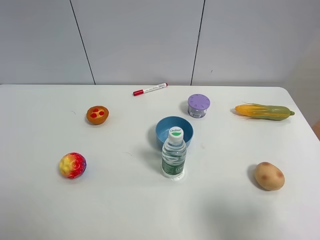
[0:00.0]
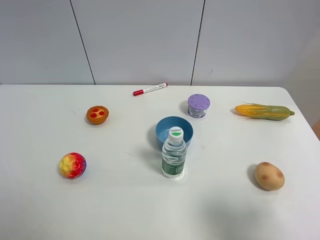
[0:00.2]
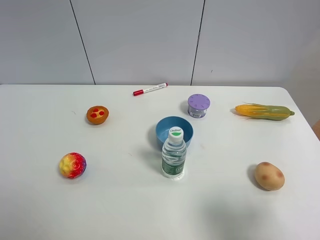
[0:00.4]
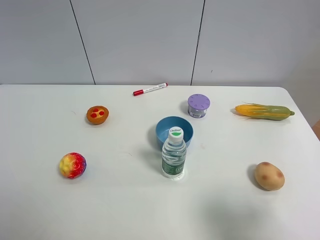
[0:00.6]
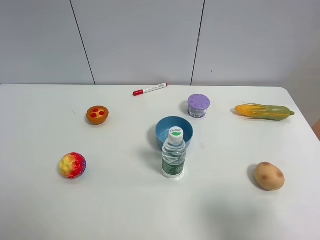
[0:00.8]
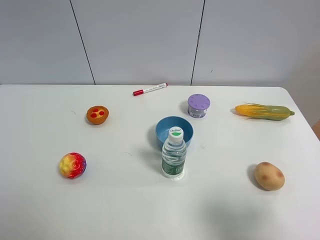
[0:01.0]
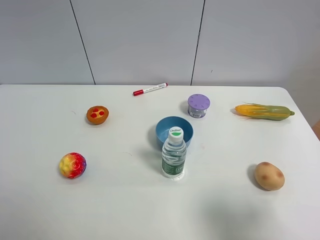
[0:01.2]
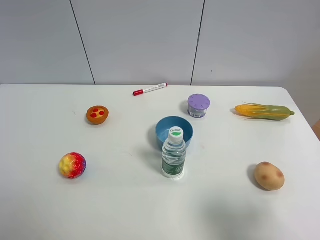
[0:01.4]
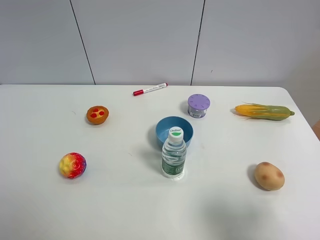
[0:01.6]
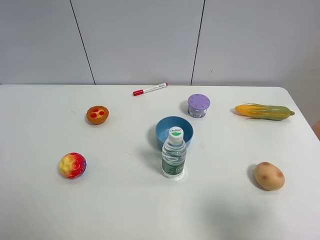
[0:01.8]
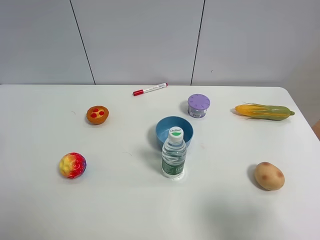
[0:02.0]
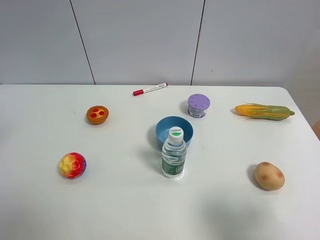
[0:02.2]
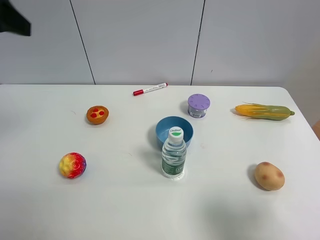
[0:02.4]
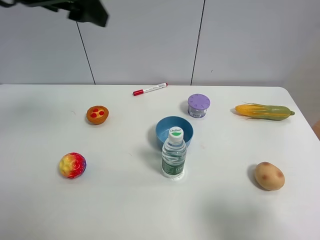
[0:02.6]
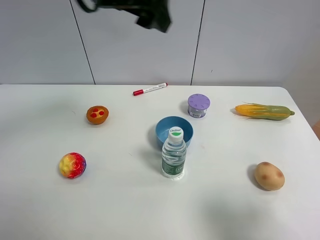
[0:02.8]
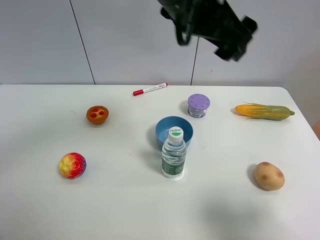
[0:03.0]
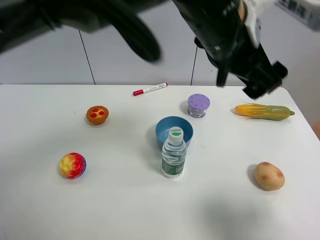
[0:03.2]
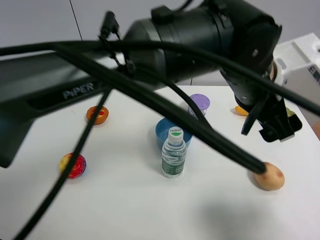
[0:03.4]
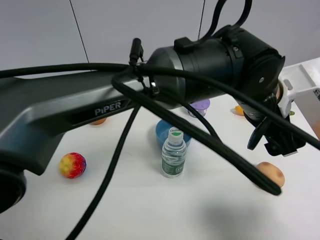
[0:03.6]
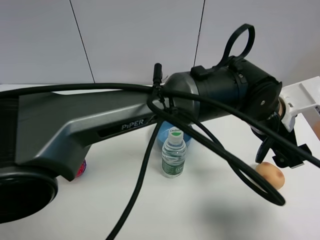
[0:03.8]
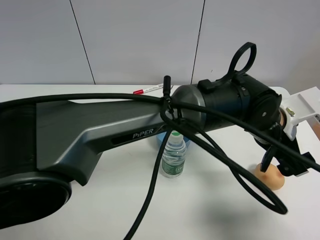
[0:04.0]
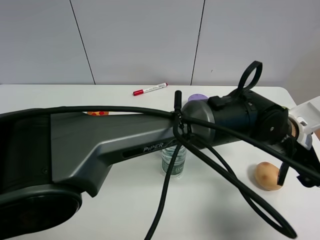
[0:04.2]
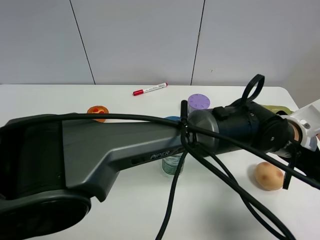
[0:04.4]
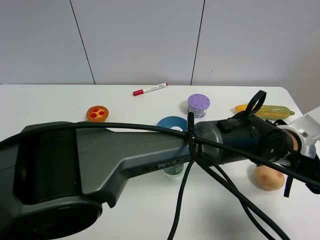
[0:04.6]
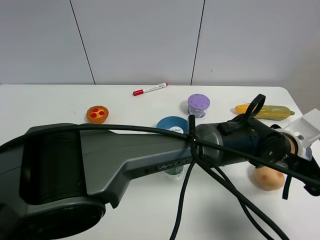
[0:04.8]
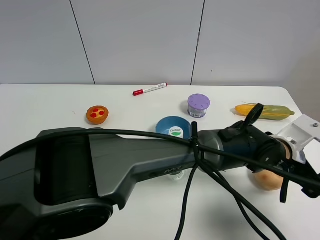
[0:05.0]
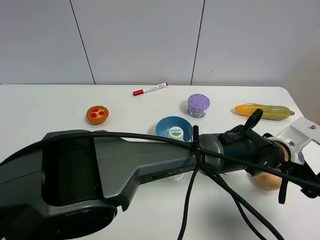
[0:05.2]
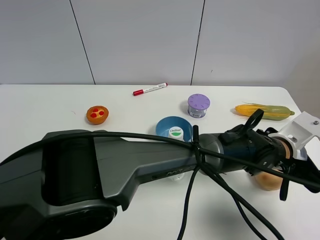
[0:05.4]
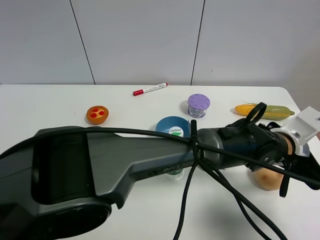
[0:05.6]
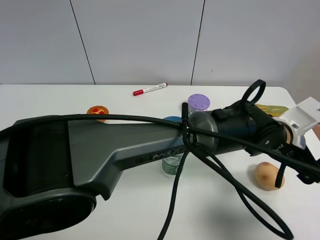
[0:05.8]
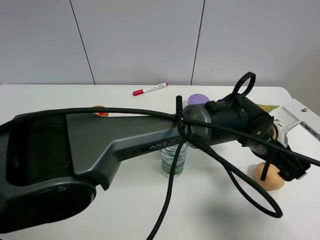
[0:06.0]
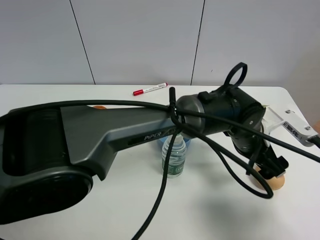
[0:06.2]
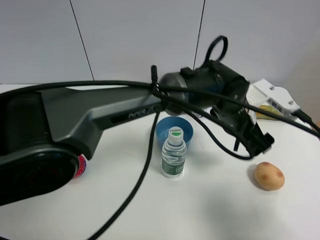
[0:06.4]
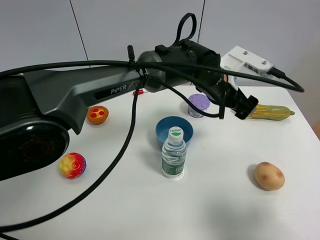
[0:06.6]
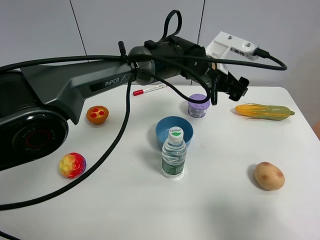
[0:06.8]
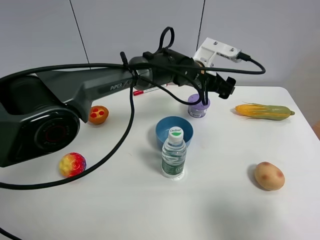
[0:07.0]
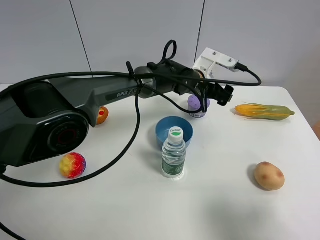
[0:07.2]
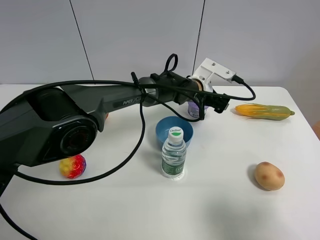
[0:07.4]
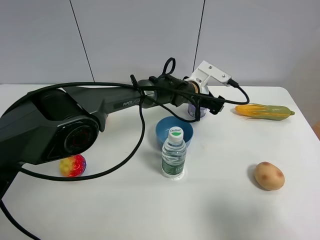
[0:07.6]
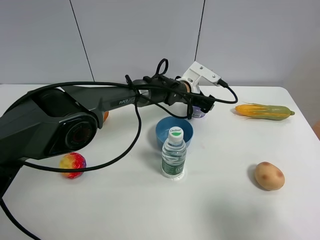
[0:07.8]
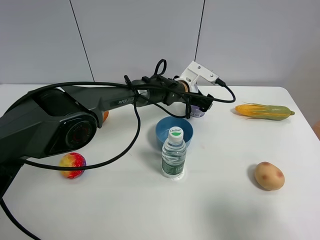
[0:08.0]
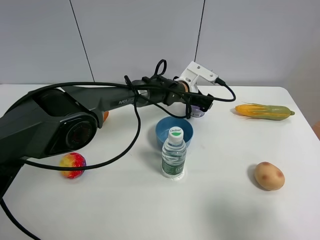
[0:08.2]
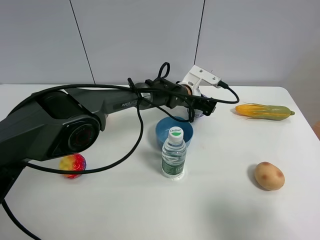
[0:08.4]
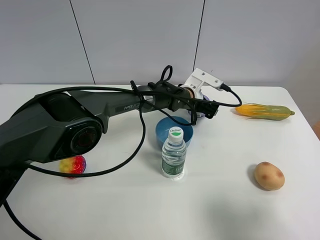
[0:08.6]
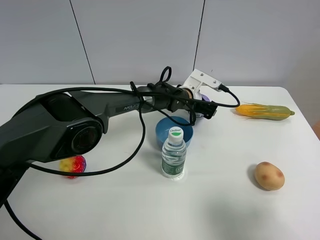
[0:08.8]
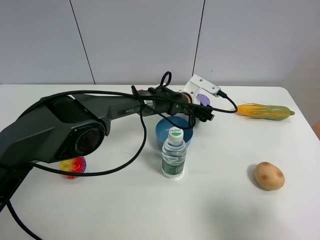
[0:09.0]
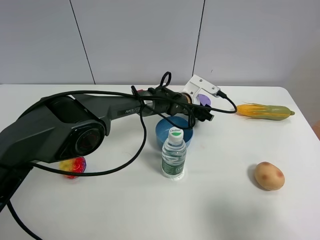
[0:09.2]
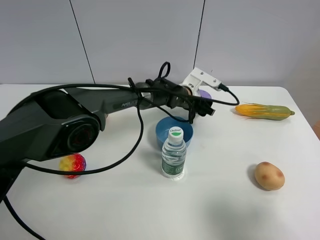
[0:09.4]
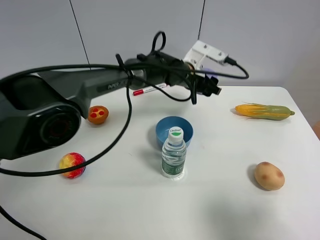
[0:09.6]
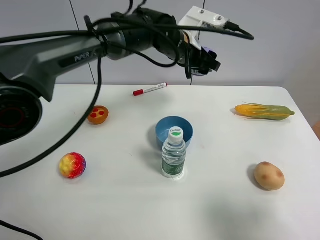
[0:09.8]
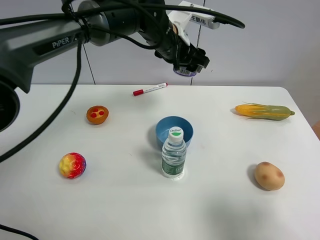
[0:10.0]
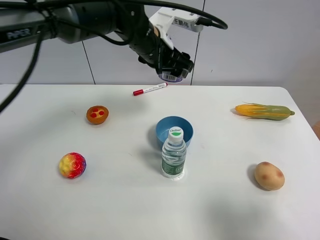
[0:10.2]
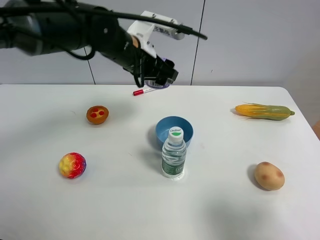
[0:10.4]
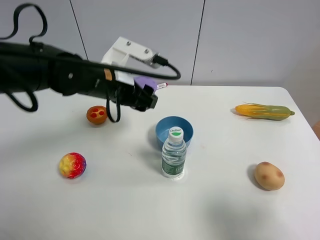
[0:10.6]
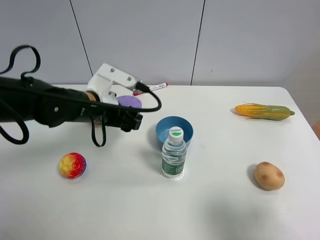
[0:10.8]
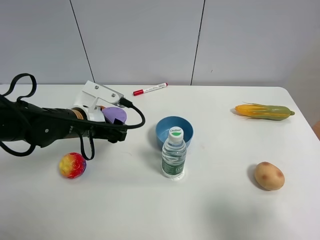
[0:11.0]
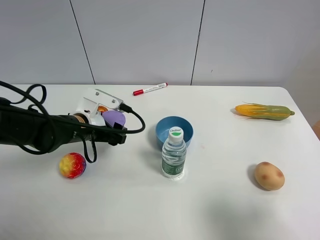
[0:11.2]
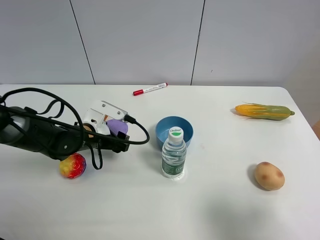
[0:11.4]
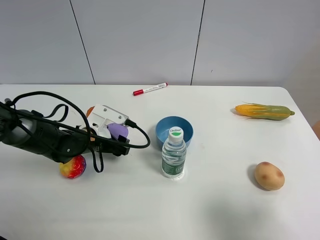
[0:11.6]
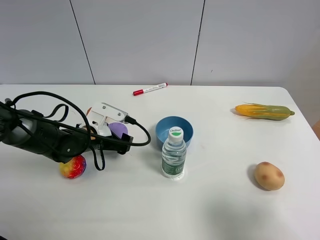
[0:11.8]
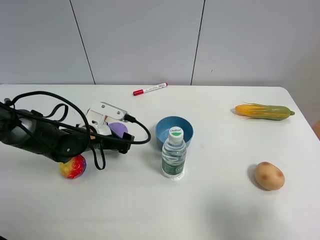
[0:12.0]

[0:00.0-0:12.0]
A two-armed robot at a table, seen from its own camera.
Task of the whole recording: the gripper move the object.
Step, 0:00.0 to 0:09.0: Grasp the Incense box with the left gripper.
0:01.6 to 0:03.0: The left gripper moves to the right and forward, approximately 40 cm.
0:03.0 to 0:04.4: The left gripper goes roughly 25 cm downward and to the right.
0:06.0 to 0:07.6: The left gripper goes about 20 cm forward and to the left.
0:07.6 to 0:09.0: The left gripper closes its fingers.
0:09.0 to 0:10.4: The left gripper heads upward, to the left and backward, covering approximately 25 cm.
0:10.4 to 0:12.0: The left gripper moves downward and to the left, roughly 20 cm, and opens.

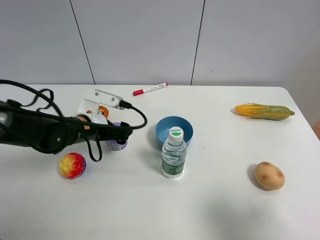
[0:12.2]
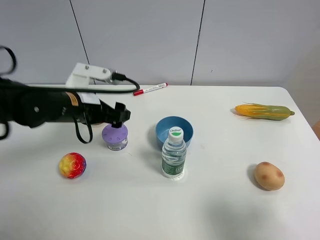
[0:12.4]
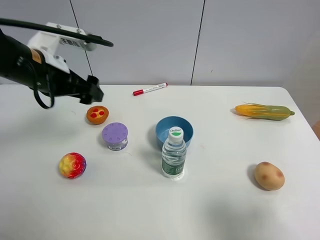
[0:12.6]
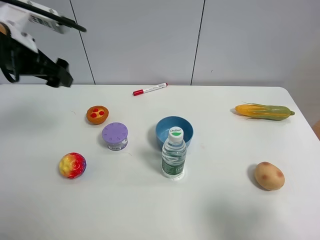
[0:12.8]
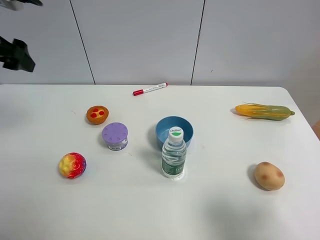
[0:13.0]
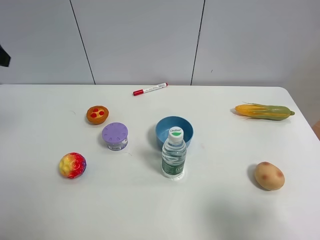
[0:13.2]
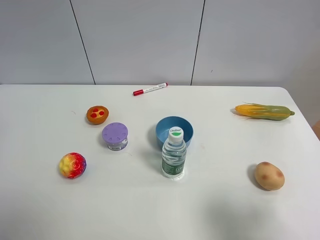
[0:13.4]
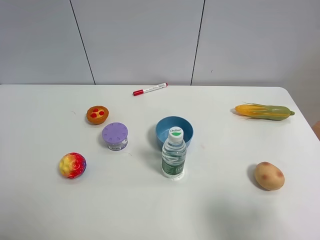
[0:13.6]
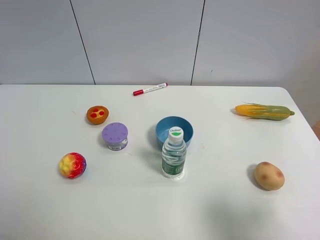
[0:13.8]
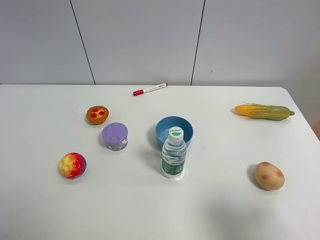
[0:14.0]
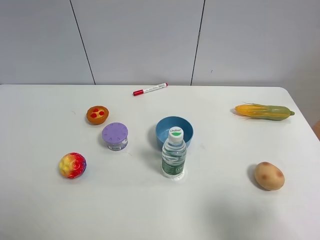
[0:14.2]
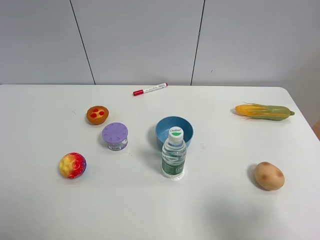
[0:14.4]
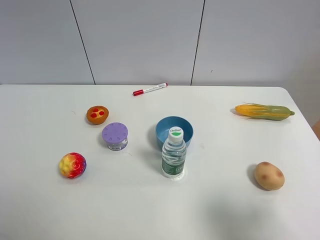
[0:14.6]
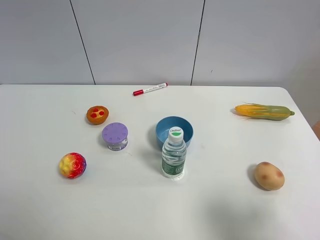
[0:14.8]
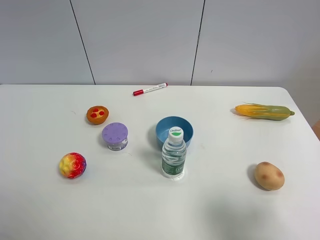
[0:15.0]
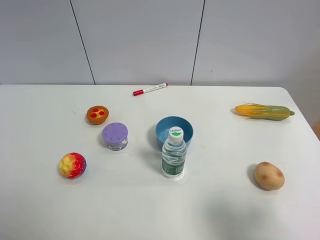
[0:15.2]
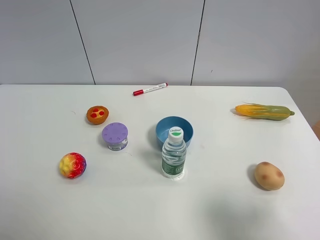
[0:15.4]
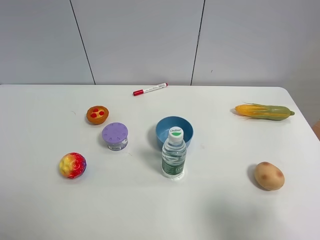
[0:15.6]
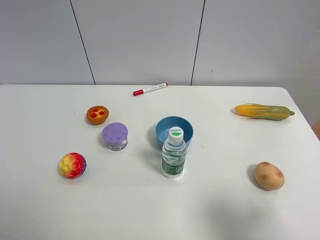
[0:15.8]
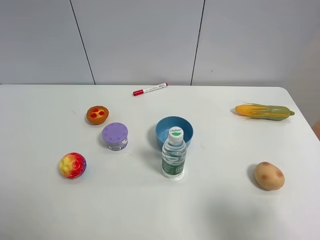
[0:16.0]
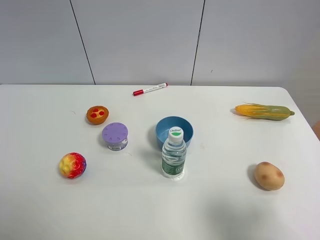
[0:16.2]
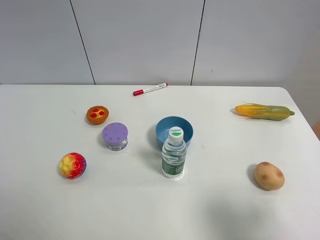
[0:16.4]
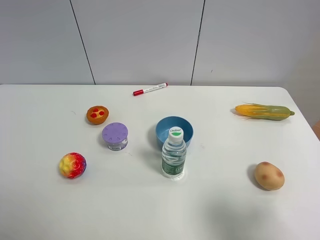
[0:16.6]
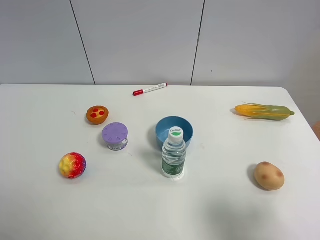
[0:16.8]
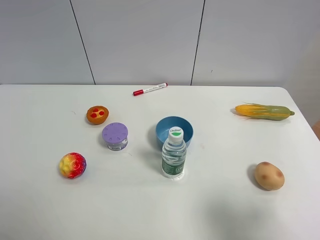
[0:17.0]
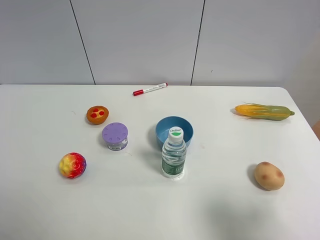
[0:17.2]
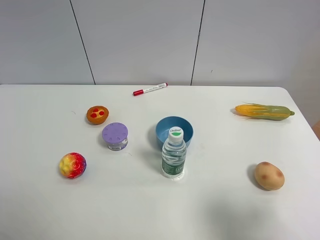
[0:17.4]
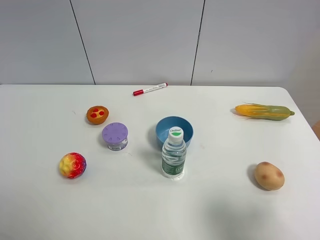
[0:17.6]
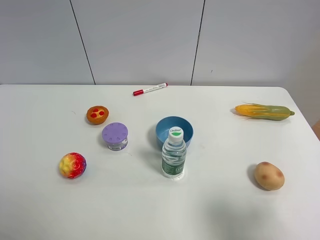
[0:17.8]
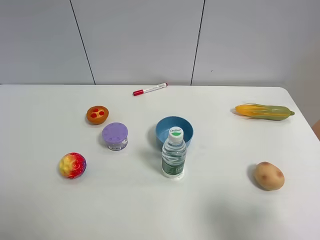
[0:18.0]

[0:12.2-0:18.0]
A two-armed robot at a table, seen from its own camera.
Task of the whole recording: the gripper move the object.
0:12.2 to 0:13.6: The left gripper travels upward, backward and to the left by roughly 35 cm.
0:15.0 to 0:18.0: Both grippers stay about where they are.

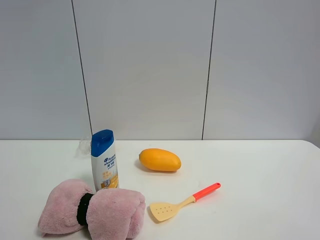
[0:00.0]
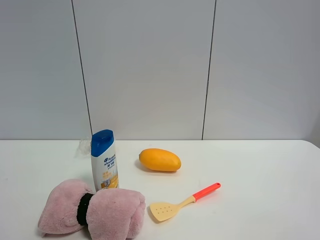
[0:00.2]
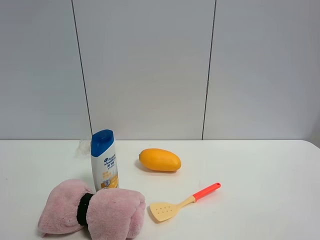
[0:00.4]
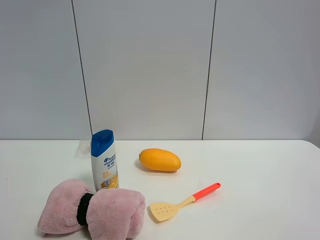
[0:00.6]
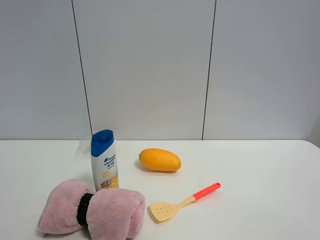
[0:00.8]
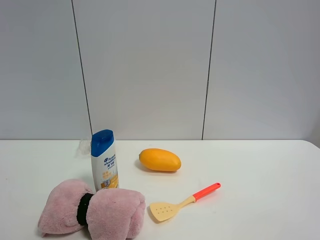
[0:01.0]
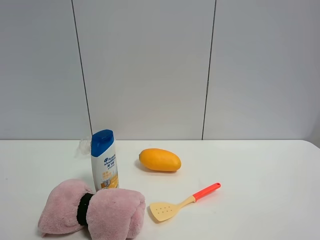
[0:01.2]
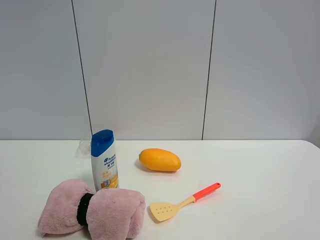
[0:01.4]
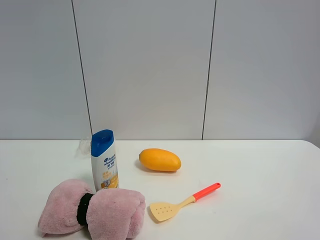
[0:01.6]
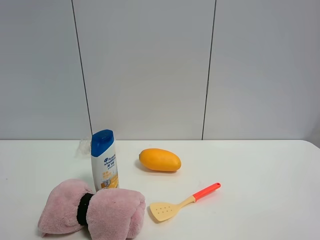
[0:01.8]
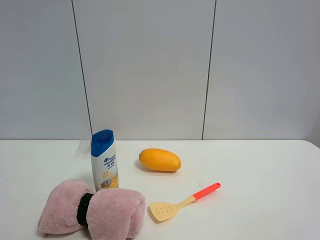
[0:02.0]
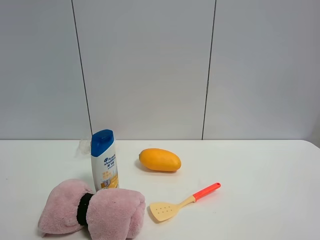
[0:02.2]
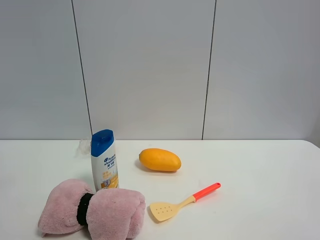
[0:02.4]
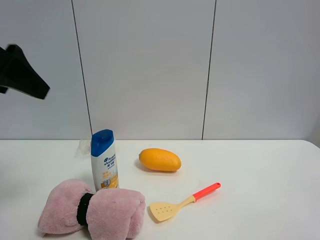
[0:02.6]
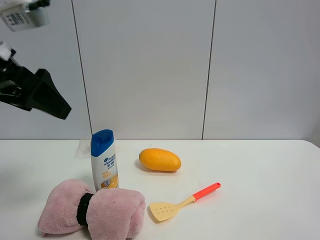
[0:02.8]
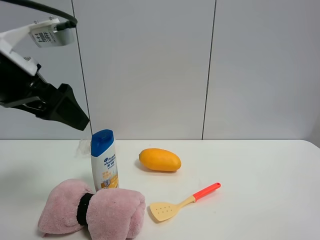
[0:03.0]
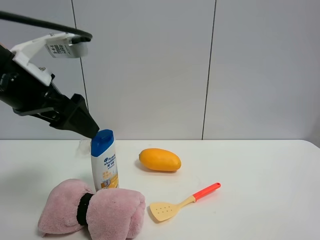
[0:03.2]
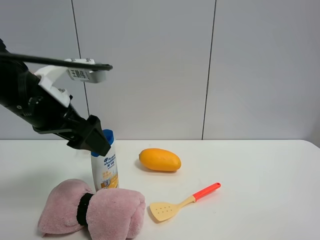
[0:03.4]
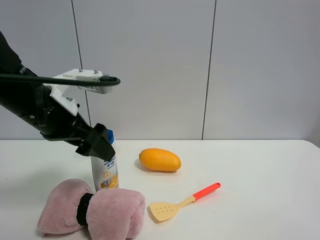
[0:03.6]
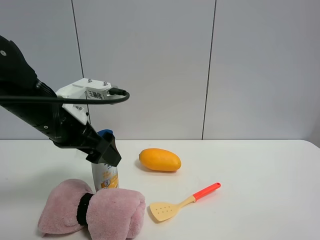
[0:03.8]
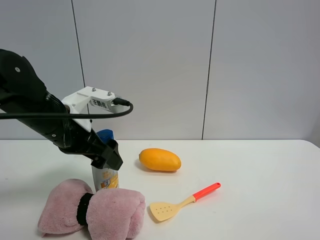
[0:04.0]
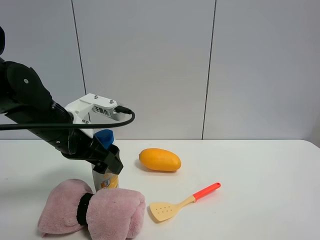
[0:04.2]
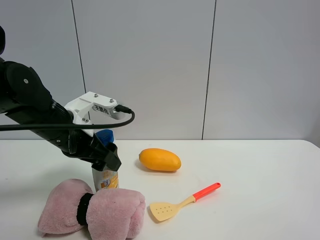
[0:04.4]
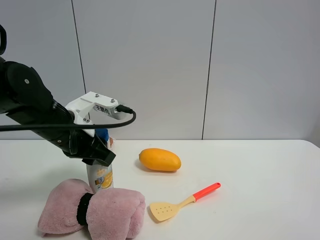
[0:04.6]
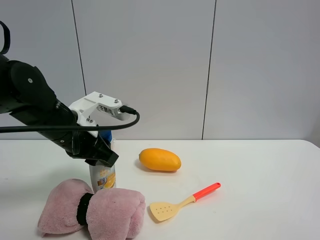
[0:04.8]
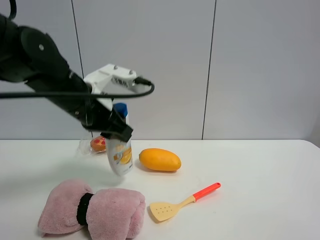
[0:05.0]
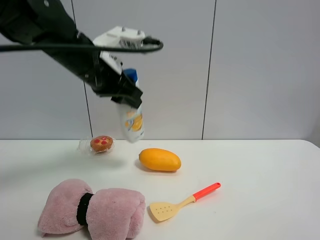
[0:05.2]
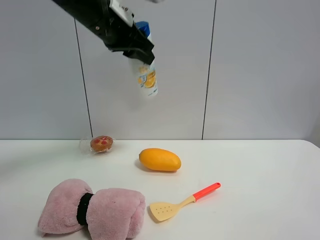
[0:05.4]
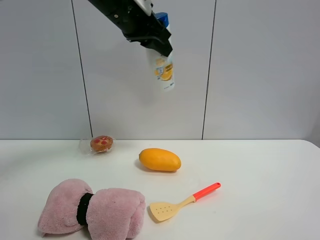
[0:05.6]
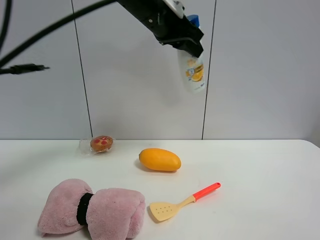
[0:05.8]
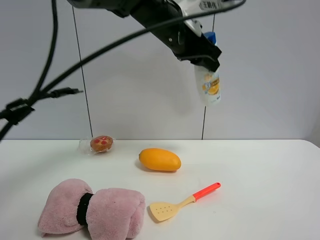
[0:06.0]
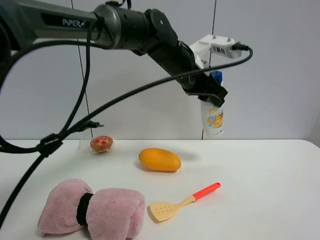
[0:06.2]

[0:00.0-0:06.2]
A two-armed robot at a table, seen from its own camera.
Task of the whole recording: the gripper move the object.
Step, 0:00.0 to 0:04.4: Grasp the shampoo with the left gripper.
0:00.0 to 0:01.6: Neither gripper changes place.
0:01.6 to 0:03.2: The left gripper travels forward by roughly 25 cm.
0:03.2 to 0:04.6: The left gripper moves downward, about 10 cm, and closes its fingers.
0:04.6 to 0:06.2: The left gripper moves to the right and forward, roughly 25 cm.
